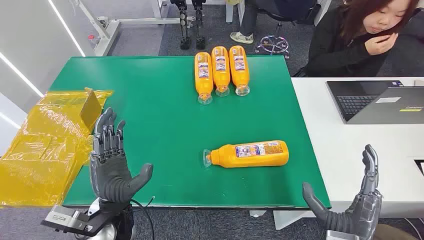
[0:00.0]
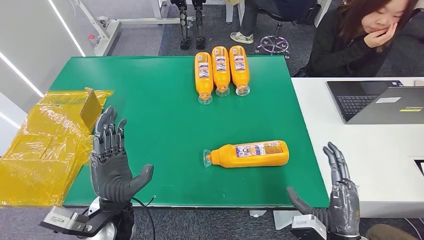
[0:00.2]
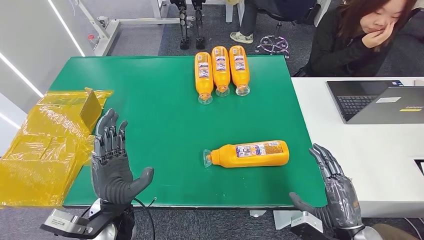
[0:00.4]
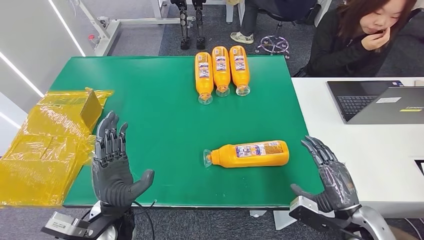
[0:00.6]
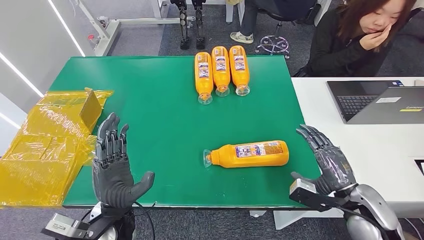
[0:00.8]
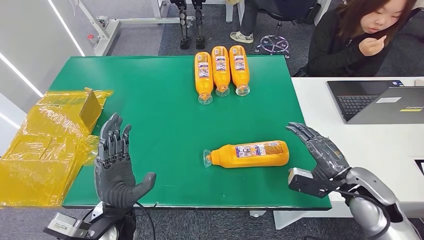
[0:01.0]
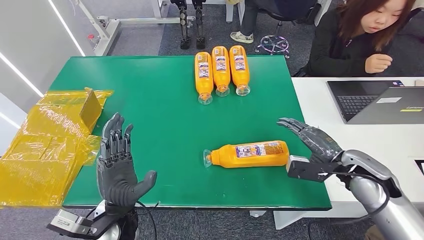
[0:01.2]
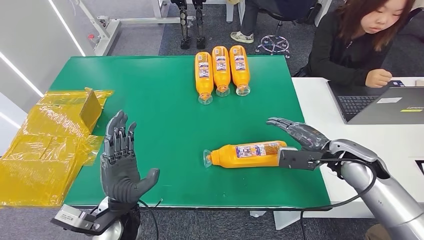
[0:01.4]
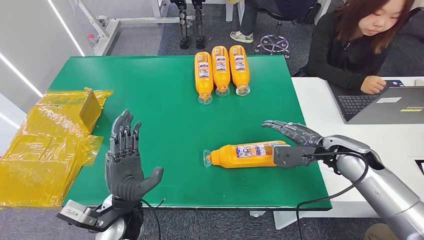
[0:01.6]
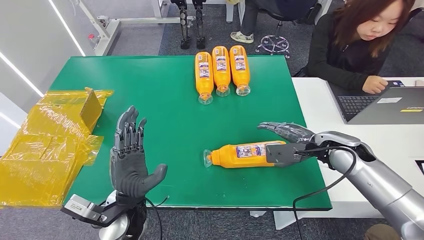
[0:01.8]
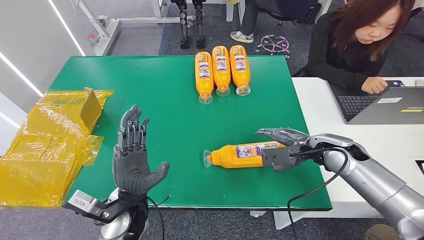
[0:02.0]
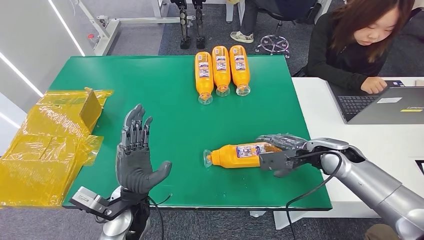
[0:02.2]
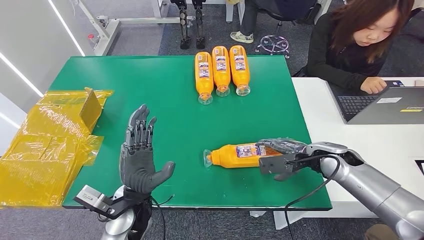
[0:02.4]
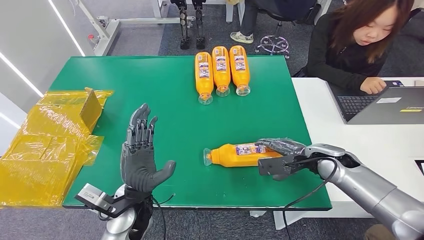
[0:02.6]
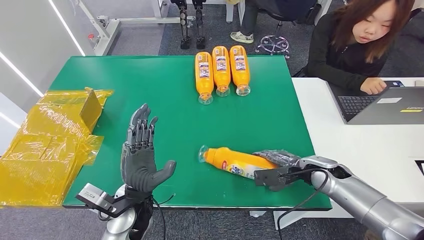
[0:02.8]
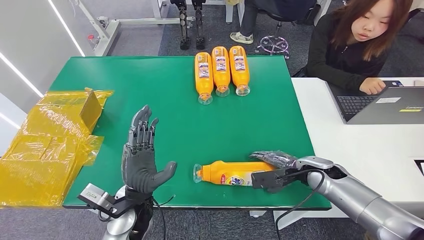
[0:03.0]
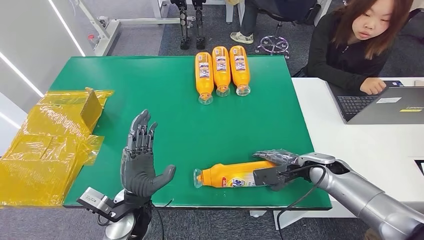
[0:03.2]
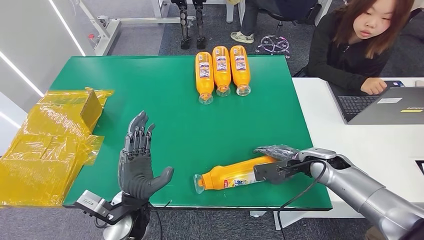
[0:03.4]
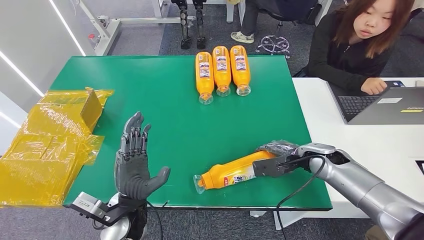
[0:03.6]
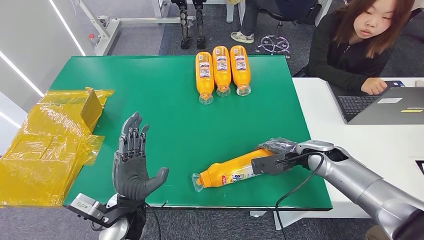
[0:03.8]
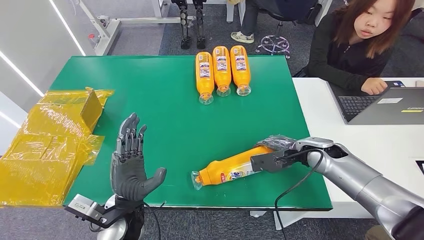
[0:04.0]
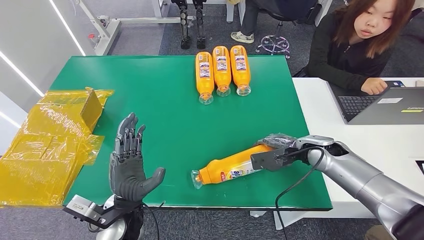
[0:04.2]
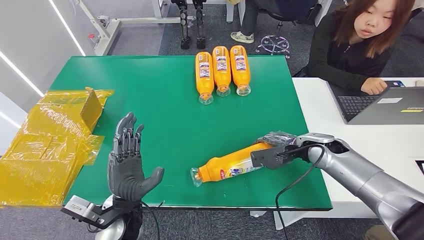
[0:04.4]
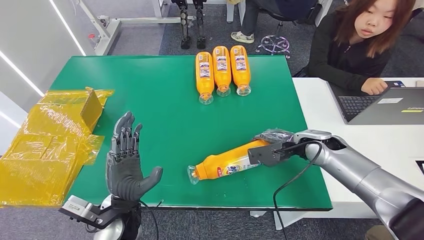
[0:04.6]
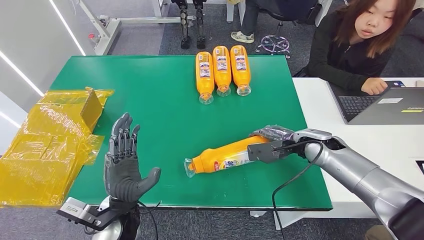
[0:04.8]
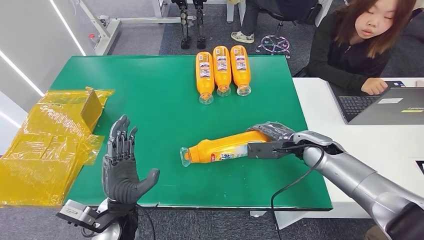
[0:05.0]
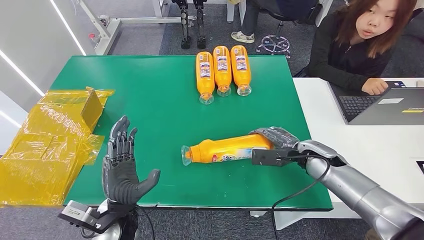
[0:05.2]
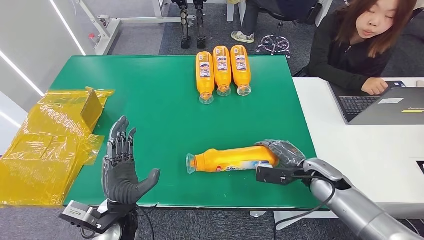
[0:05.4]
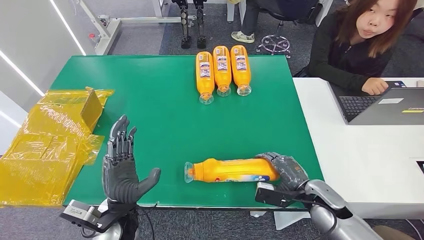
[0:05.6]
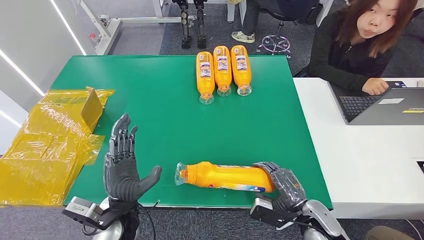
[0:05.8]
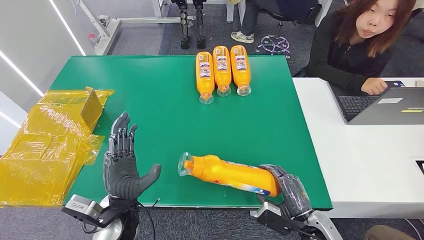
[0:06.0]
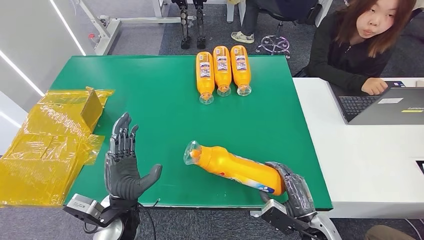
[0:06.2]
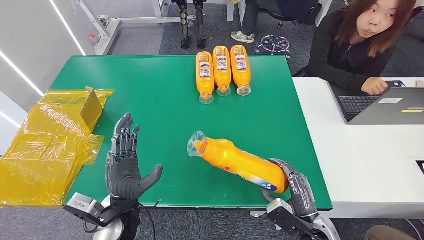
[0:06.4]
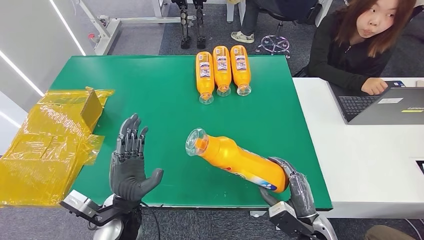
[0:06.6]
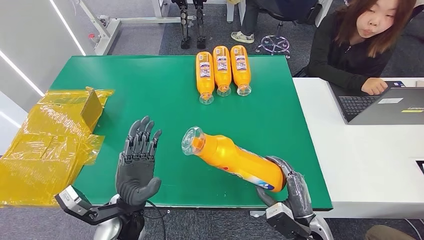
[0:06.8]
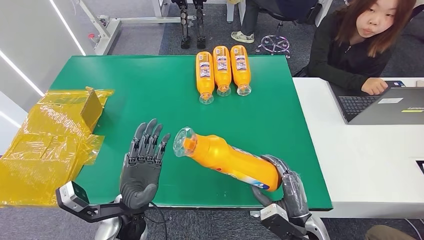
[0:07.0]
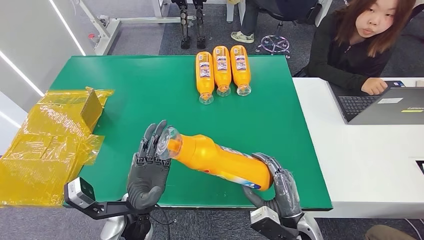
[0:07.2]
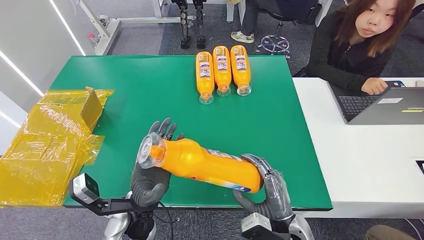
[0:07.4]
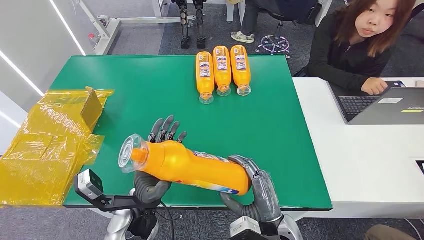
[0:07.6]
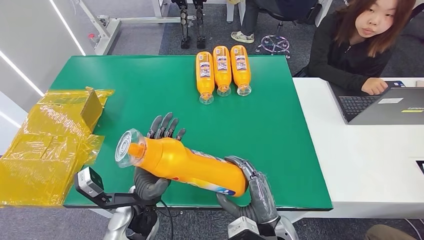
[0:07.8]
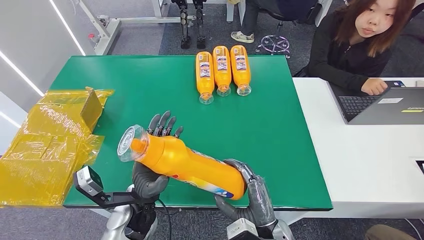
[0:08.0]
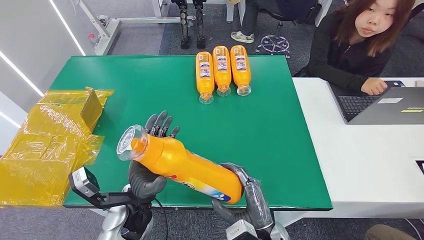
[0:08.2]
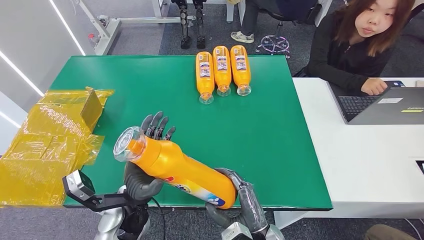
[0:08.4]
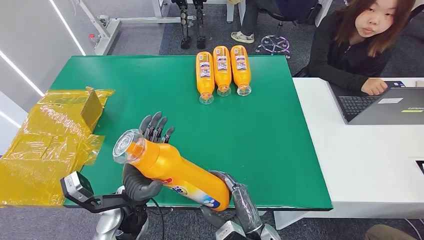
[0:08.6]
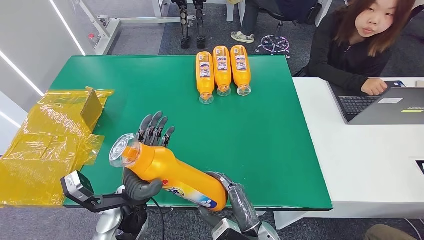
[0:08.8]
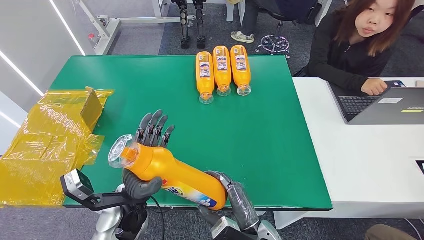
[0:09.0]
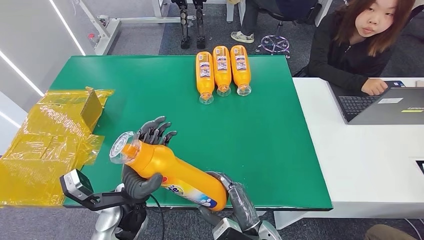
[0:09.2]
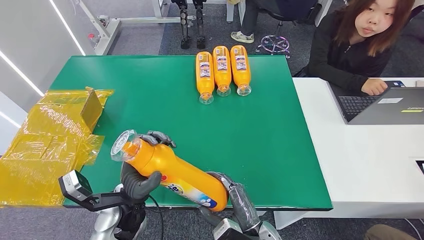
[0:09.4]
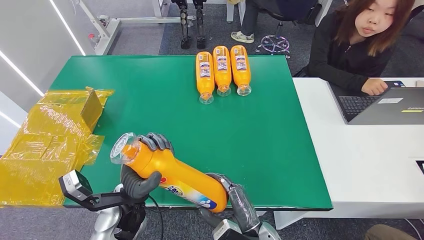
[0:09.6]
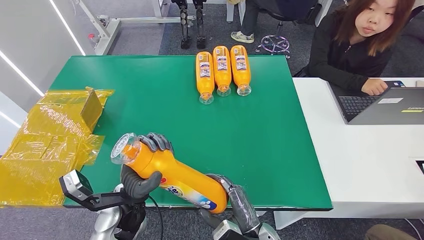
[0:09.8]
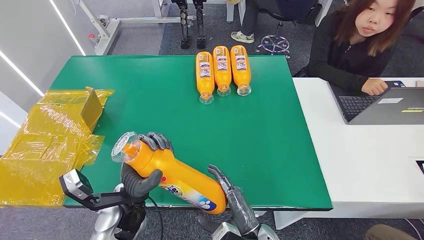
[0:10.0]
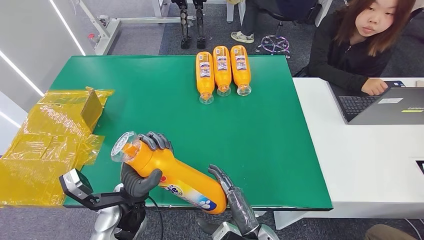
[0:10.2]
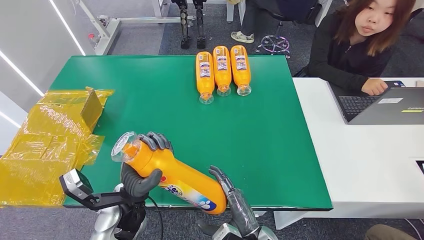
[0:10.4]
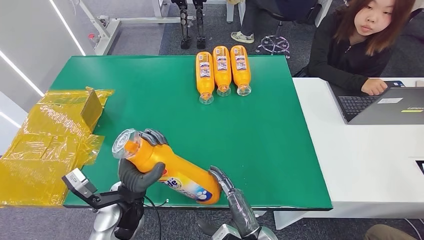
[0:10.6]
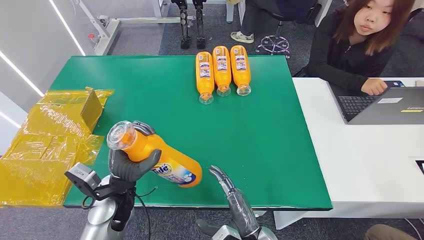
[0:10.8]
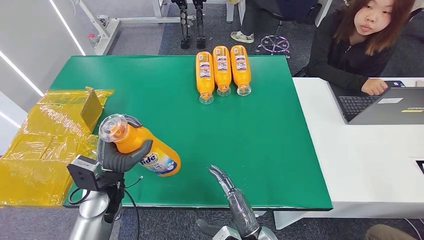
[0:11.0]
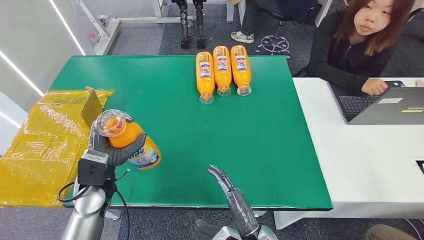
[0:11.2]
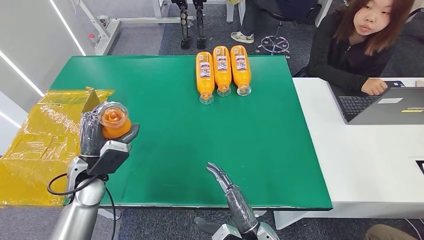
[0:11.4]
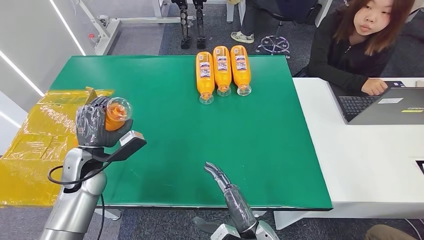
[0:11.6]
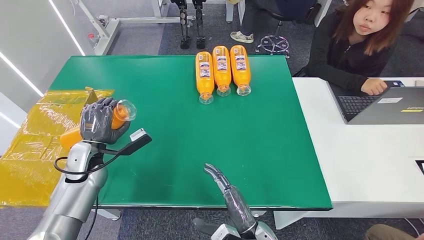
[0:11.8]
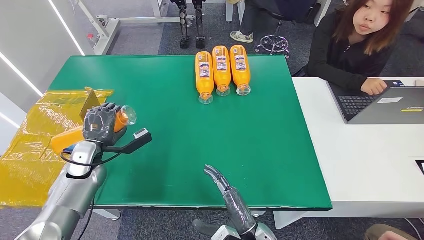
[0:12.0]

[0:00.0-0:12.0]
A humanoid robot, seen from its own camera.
Step, 0:00.0 to 0:06.4: Pick up the bottle from the table.
0:01.6 to 0:03.0: The right hand travels downward by roughly 10 cm.
0:03.0 to 0:04.4: The right hand shifts approximately 5 cm upward.
0:04.4 to 0:06.0: The right hand is displaced backward and downward by roughly 20 cm.
0:06.0 to 0:07.6: The right hand heads to the left, covering about 10 cm.
0:07.6 to 0:09.0: The hands move only a little.
0:09.0 to 0:10.4: The two hands keep their place.
0:10.4 to 0:12.0: The left hand travels to the left and forward by roughly 20 cm.

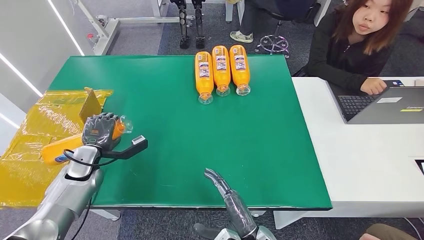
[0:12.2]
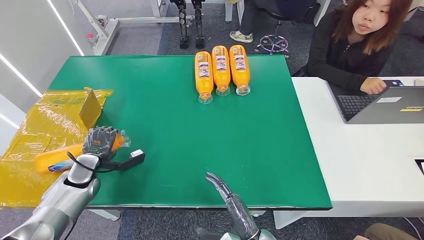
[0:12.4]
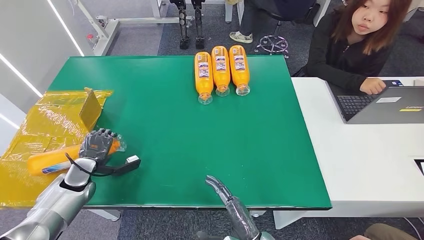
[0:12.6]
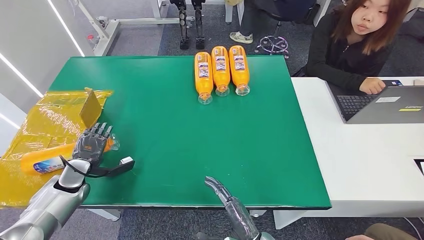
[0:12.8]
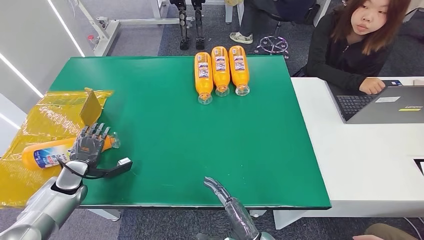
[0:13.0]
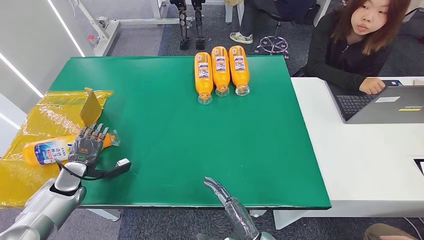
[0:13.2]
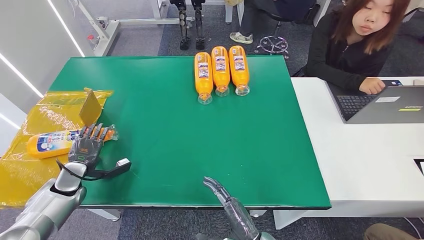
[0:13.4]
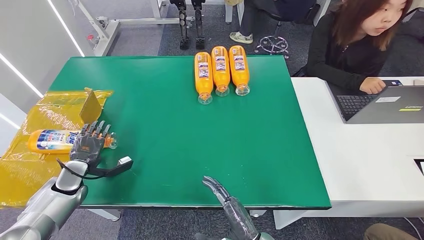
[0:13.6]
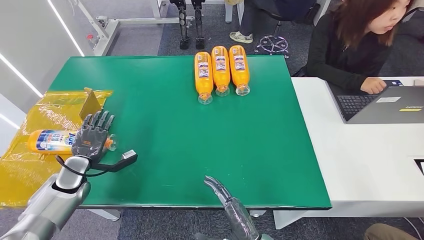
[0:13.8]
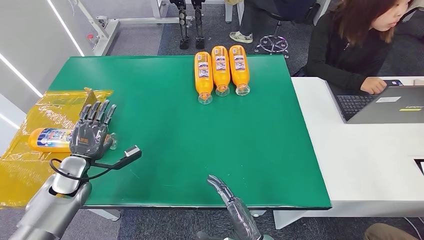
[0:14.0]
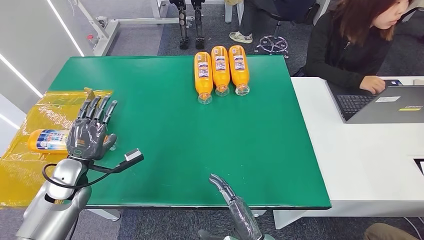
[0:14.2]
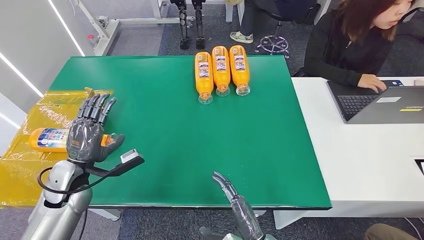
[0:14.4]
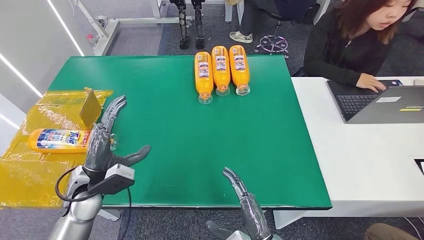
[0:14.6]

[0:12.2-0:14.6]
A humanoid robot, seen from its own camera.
Step, 0:12.2 to 0:14.6: Turn the bottle to the front side.
0:12.2 to 0:13.4: The left hand shifts approximately 10 cm to the left.
0:13.4 to 0:14.6: The left hand heads to the right and upward, covering some 20 cm.

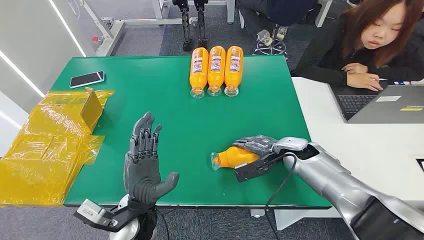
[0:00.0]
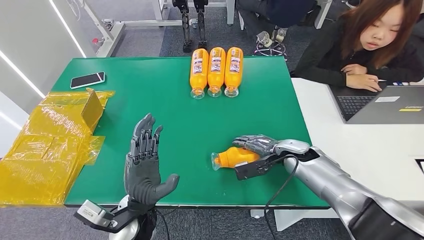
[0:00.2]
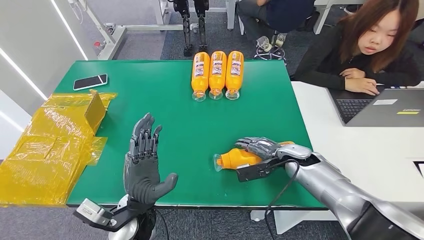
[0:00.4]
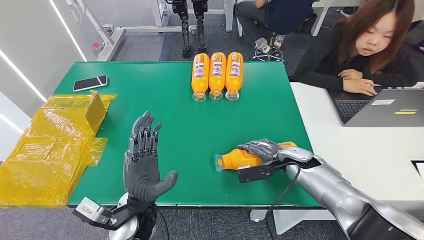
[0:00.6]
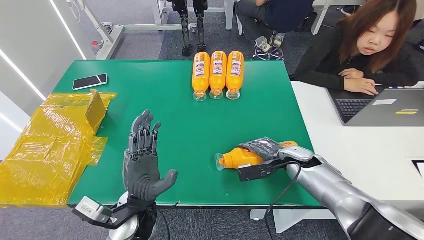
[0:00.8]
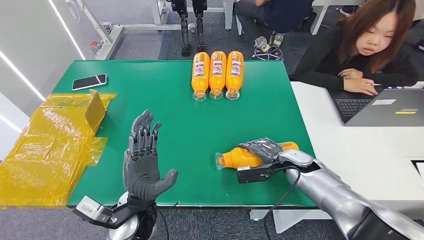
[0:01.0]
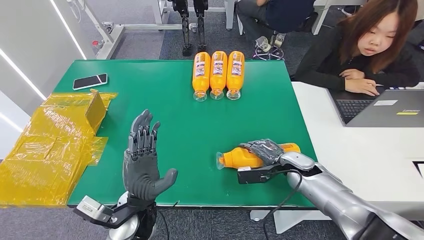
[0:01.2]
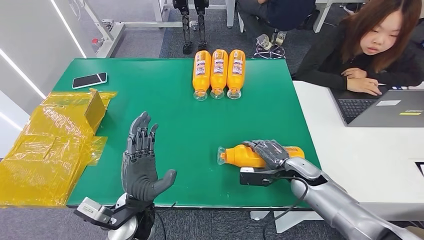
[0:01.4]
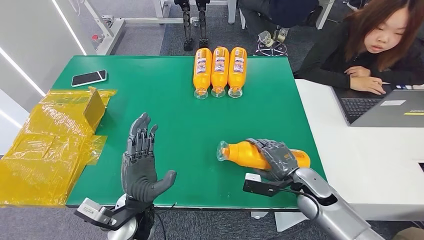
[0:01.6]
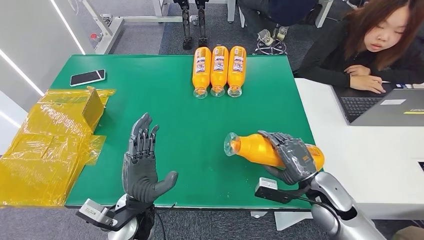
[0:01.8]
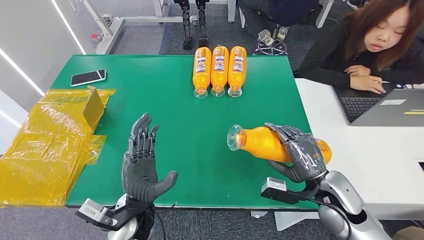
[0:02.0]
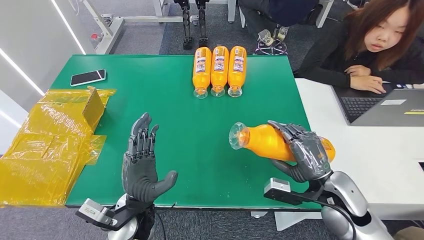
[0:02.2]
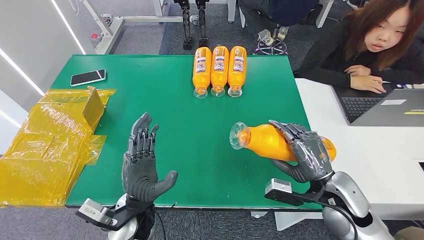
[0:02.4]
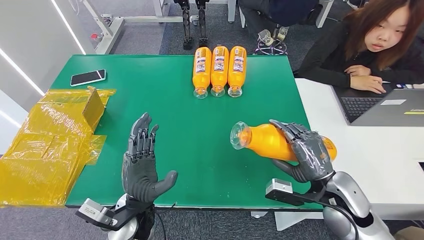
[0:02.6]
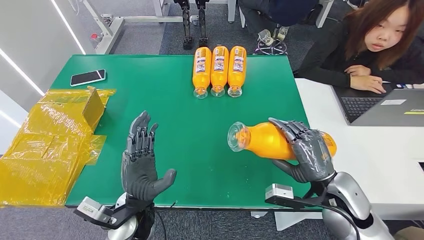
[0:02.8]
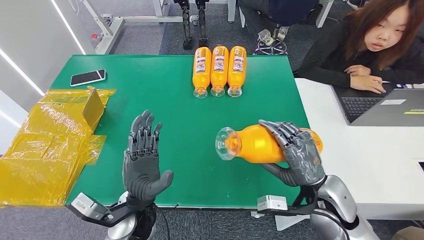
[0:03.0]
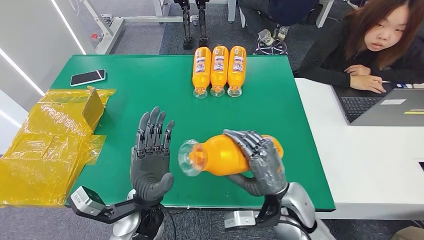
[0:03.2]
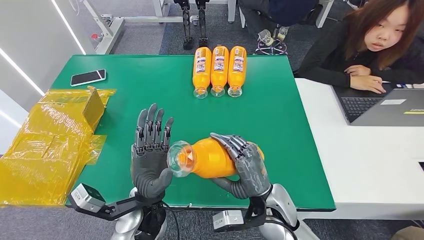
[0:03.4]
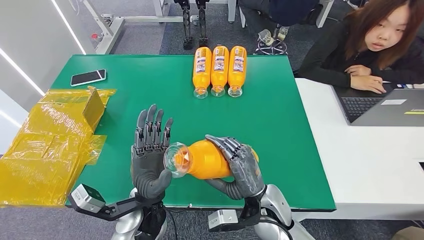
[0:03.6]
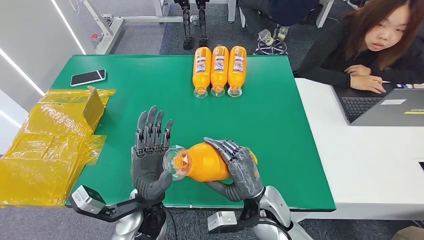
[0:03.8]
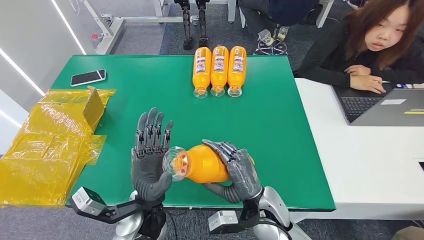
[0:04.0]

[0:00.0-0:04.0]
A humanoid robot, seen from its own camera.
Step, 0:00.0 to 0:03.6: Pick up the bottle from the table.
0:01.4 to 0:02.6: The right hand goes approximately 15 cm upward and backward.
0:02.6 to 0:04.0: The right hand is displaced to the left by roughly 15 cm.
